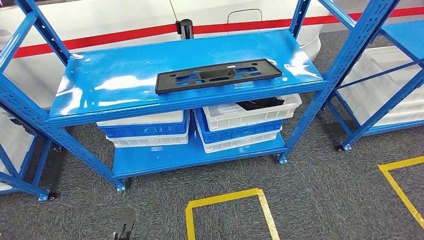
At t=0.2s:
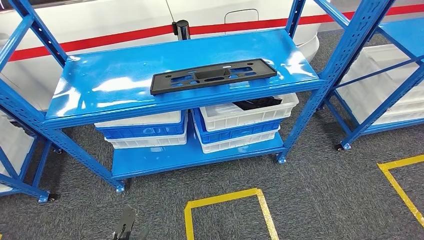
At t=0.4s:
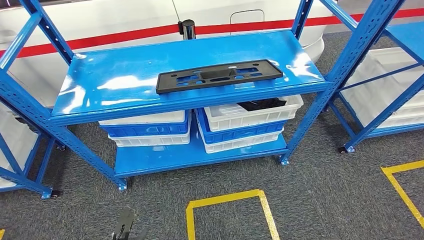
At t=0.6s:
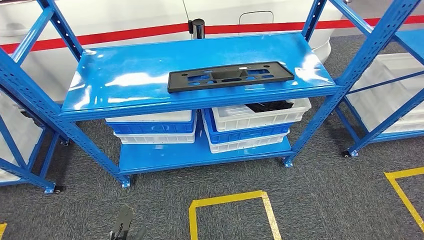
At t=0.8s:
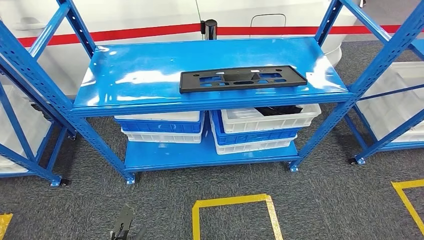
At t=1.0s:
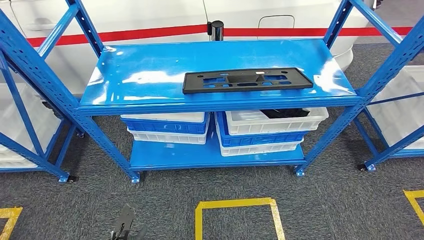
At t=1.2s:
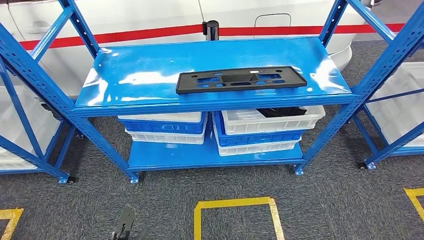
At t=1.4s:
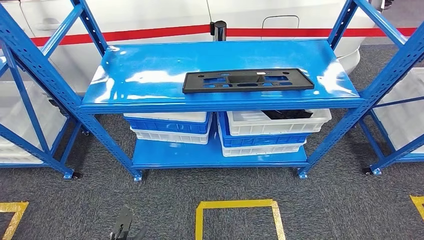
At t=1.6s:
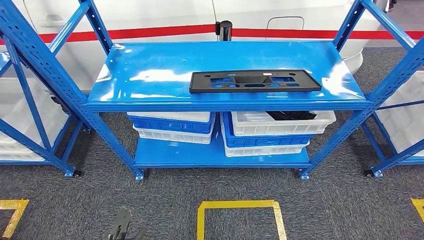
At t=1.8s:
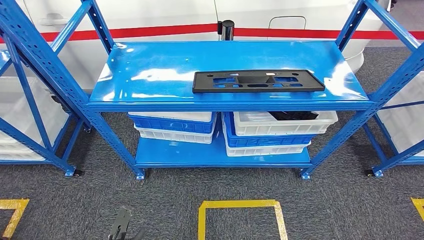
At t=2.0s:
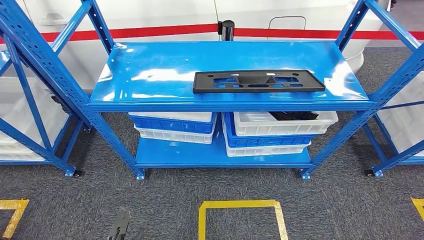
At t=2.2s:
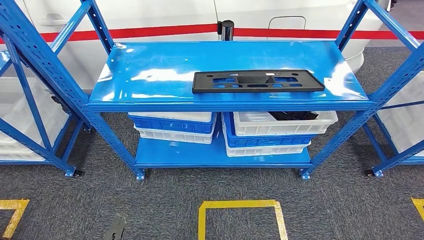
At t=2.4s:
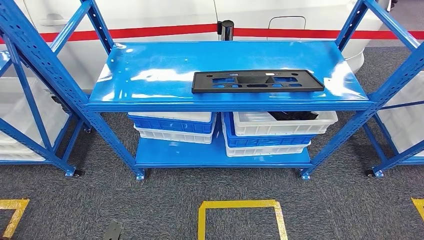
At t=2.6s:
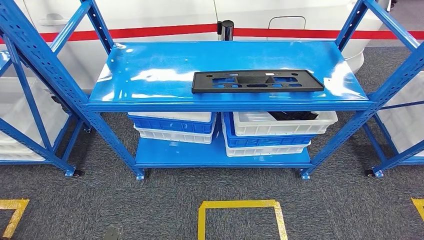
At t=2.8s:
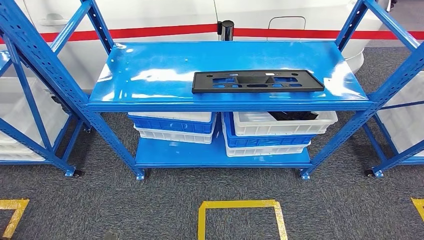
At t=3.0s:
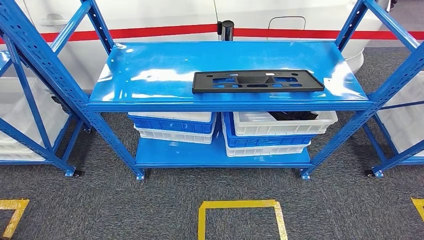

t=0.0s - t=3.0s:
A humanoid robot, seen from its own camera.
Step, t=0.0s - t=3.0s: Move to the initial position of the shelf.
t=1.6s - t=3.0s: The right hand shifts some 10 cm backward. Meanwhile the left hand travels backward and to the left by roughly 10 cm.

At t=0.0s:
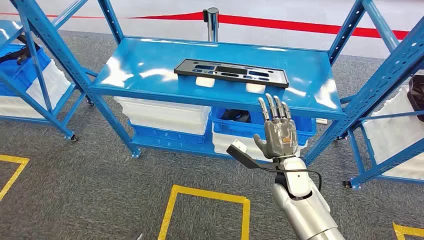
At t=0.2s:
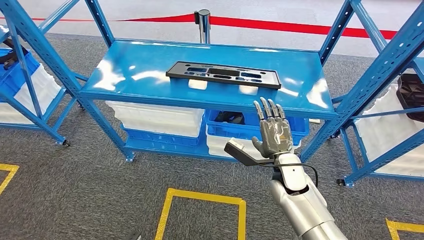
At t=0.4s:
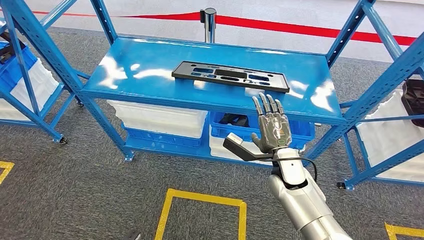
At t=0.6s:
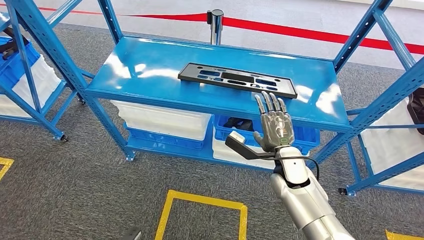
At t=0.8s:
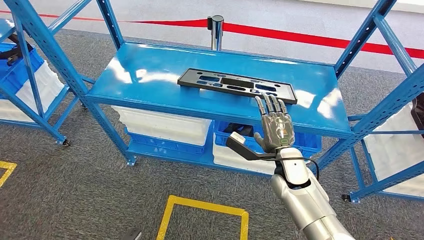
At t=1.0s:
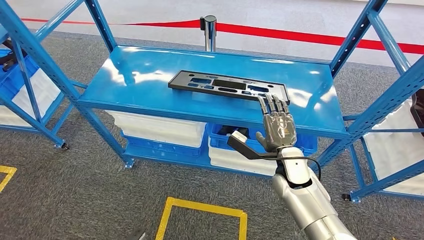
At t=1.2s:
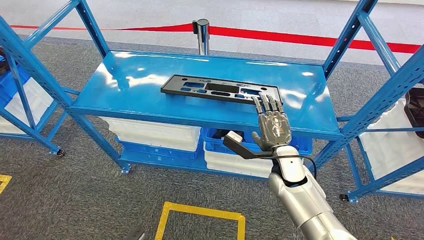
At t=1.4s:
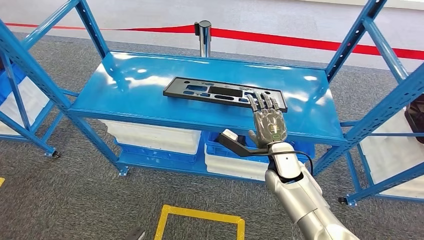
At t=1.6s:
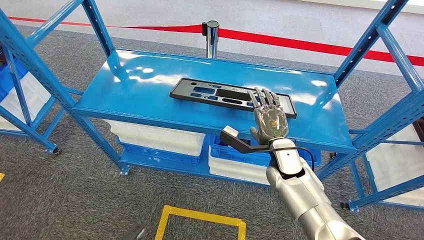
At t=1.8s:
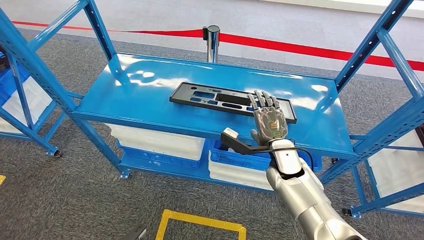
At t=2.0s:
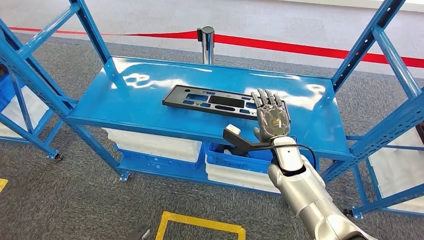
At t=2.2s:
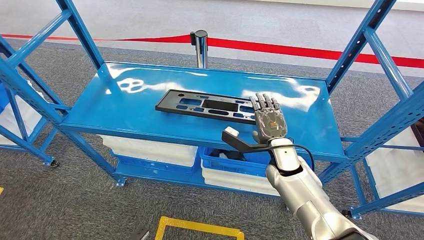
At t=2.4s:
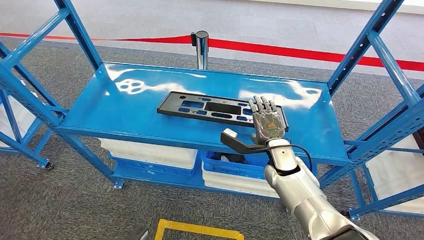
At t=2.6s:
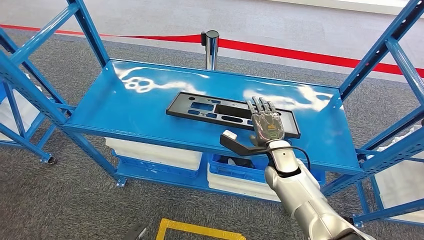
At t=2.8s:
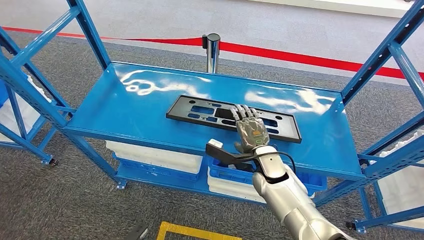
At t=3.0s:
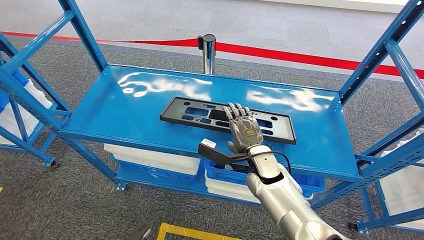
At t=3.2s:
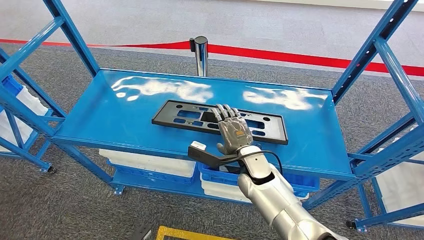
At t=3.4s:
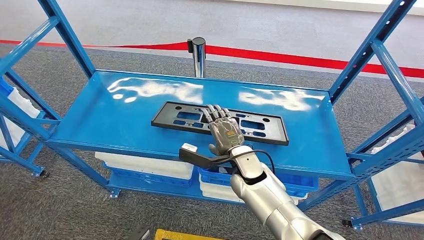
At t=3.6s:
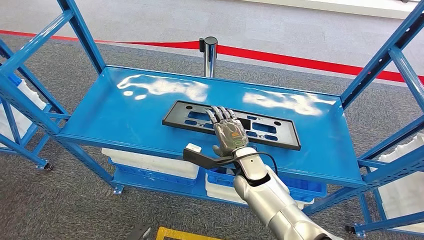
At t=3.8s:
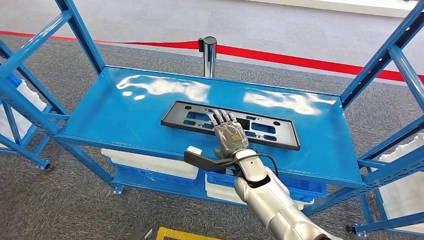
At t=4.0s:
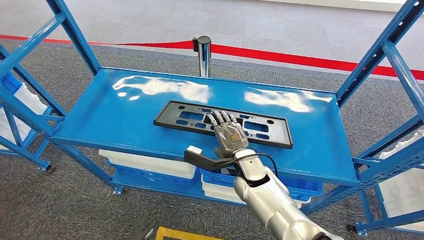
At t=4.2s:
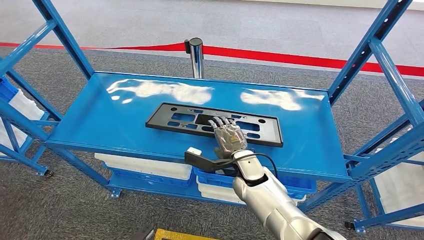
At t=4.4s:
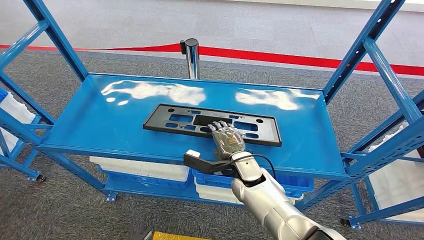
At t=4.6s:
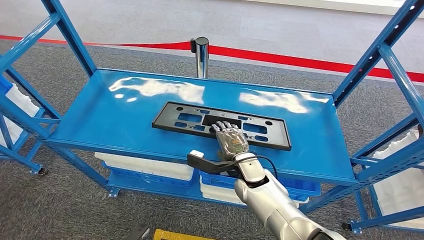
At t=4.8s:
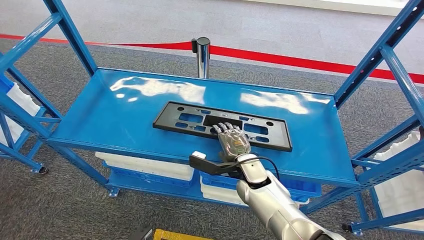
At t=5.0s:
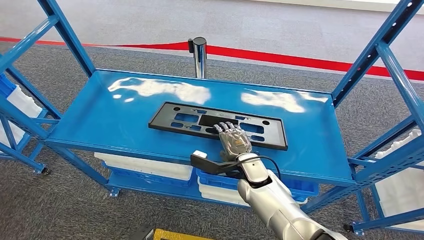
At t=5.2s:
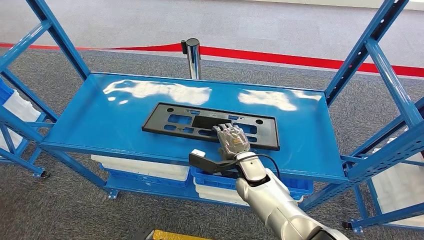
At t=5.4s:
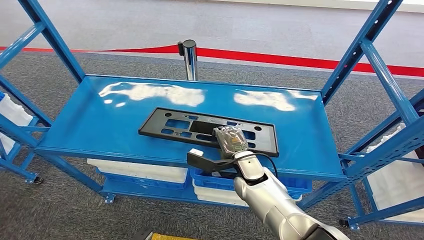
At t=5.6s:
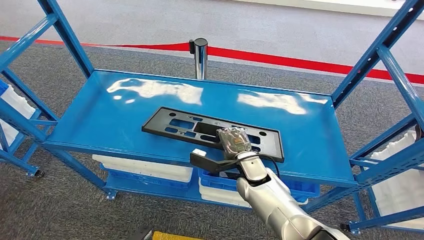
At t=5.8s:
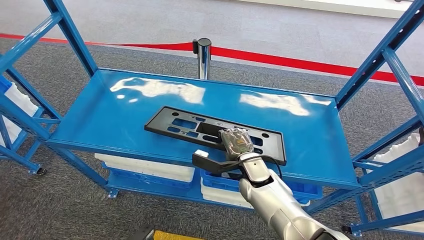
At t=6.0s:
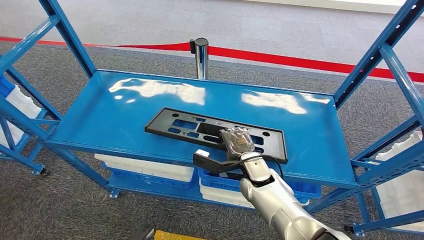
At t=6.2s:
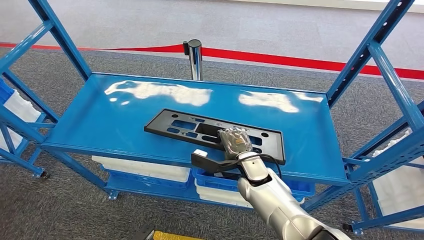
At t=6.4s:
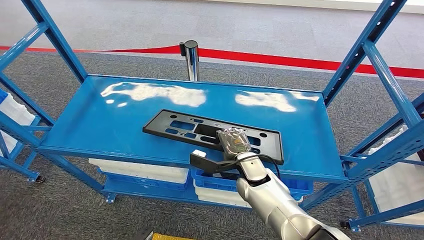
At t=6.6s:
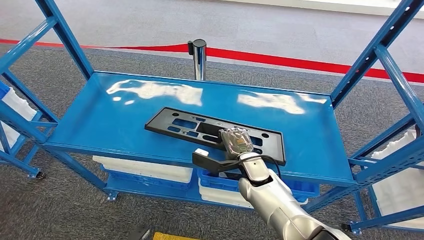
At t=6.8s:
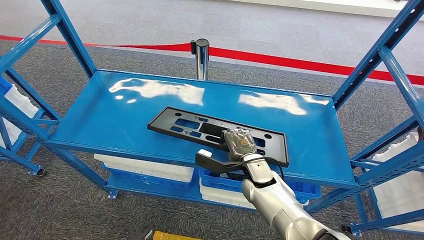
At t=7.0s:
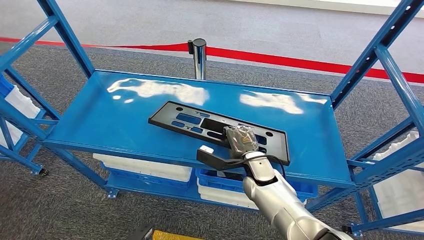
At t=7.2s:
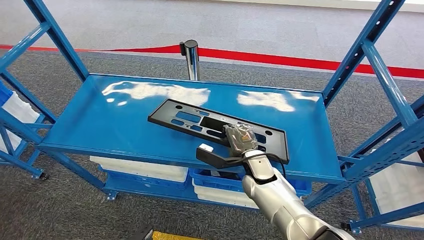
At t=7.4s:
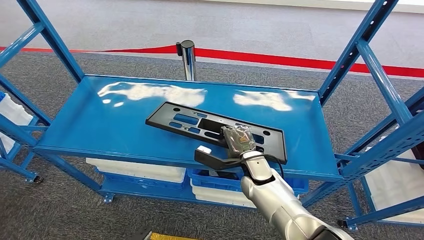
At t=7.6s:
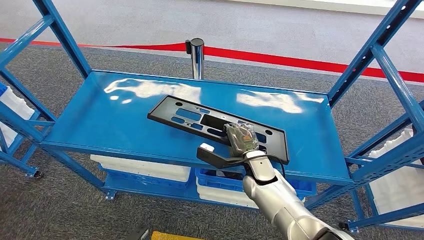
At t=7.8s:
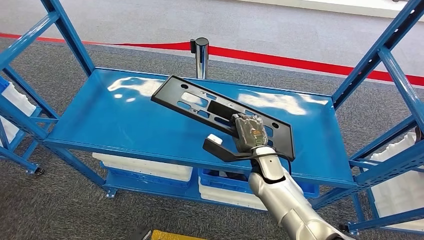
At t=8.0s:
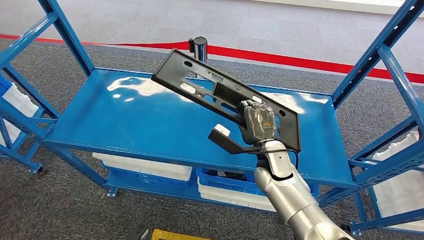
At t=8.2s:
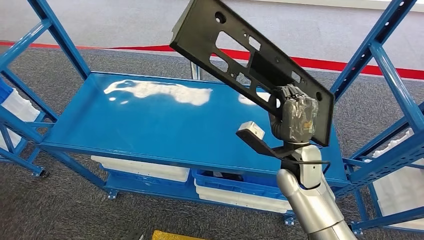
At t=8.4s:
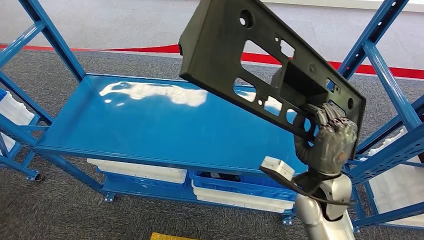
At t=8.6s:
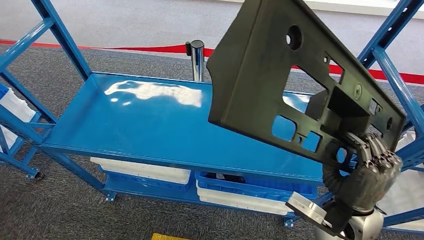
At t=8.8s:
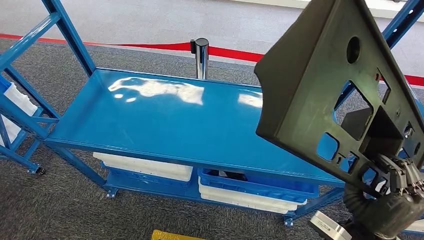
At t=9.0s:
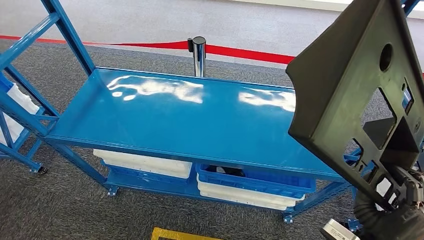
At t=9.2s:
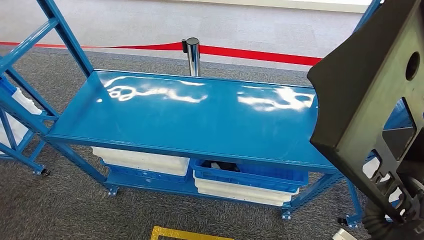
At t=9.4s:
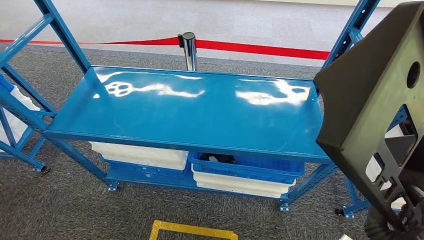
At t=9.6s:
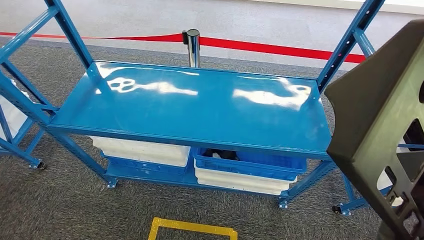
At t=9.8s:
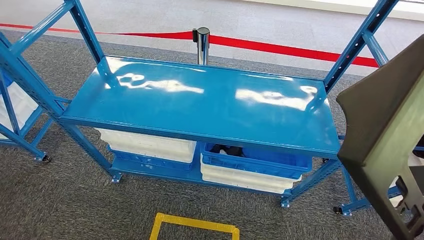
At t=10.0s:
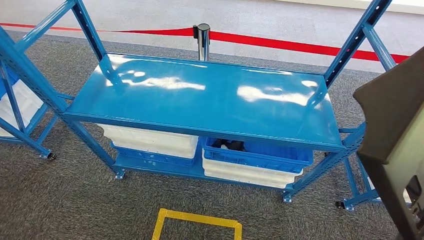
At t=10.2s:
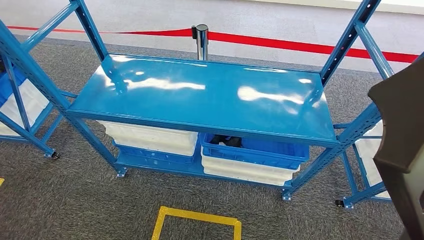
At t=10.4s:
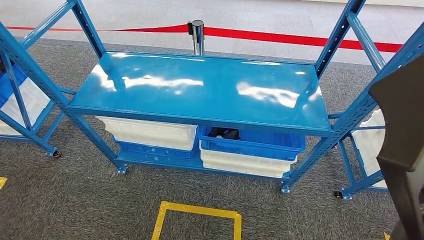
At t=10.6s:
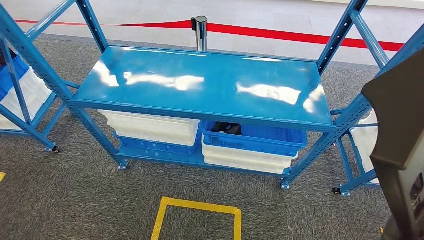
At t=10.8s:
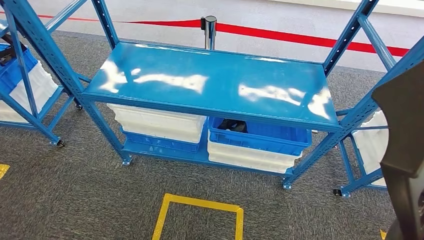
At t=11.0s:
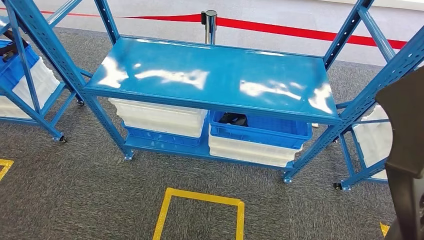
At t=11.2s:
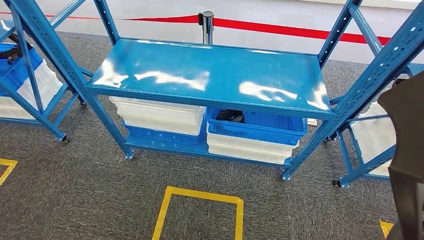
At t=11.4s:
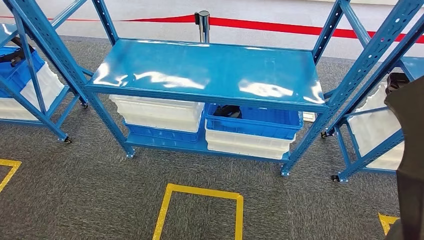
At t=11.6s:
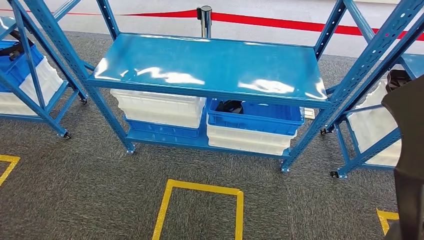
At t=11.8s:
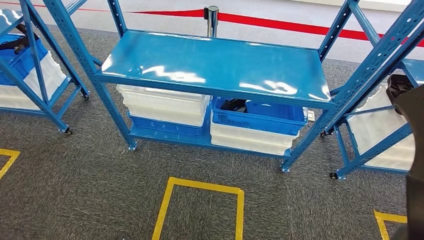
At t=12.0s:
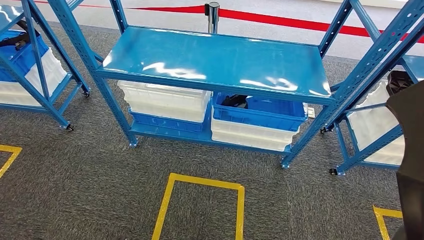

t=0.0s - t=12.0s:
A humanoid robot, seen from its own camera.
Step, t=0.0s - t=8.6s: Pick up the large material from the shelf.

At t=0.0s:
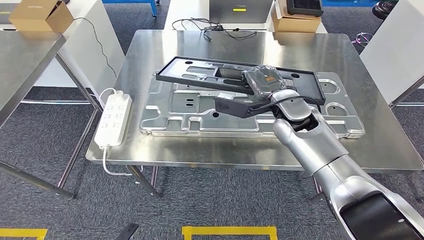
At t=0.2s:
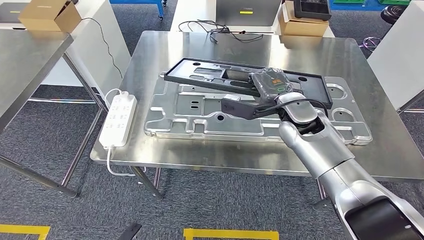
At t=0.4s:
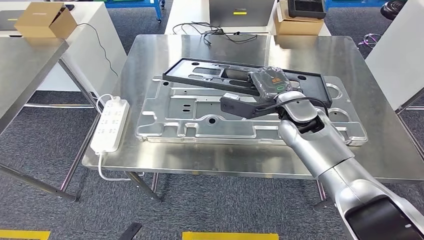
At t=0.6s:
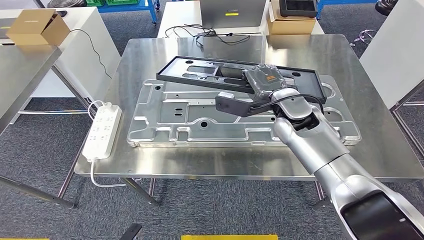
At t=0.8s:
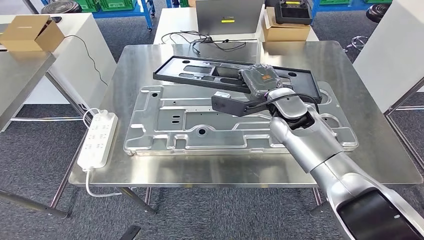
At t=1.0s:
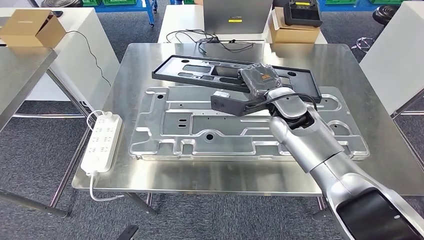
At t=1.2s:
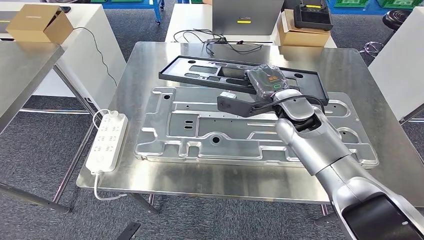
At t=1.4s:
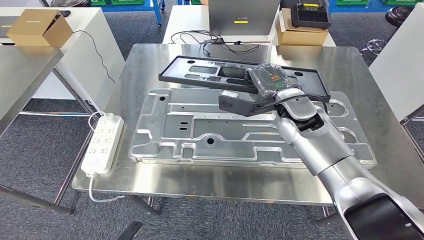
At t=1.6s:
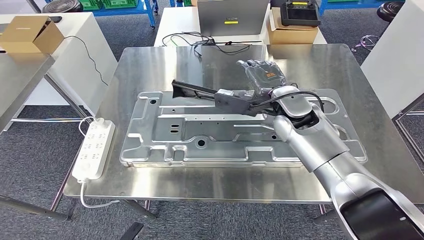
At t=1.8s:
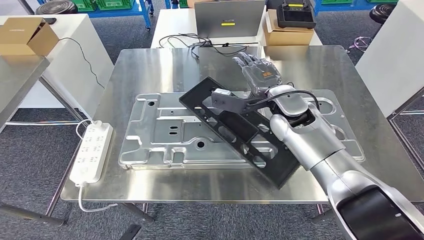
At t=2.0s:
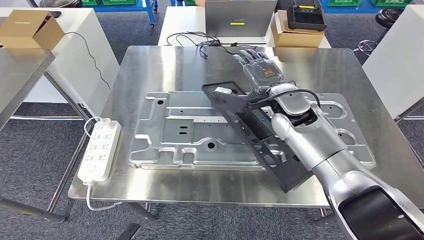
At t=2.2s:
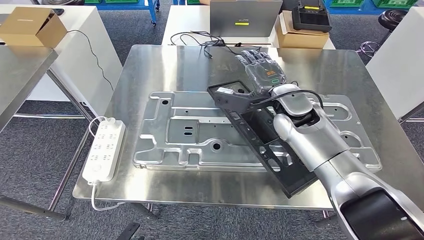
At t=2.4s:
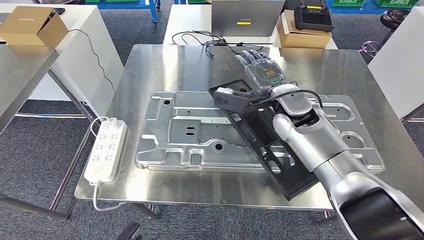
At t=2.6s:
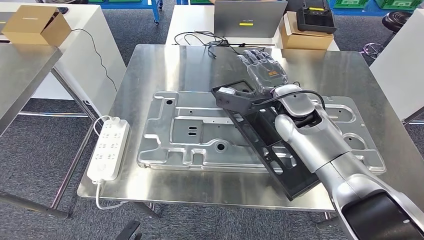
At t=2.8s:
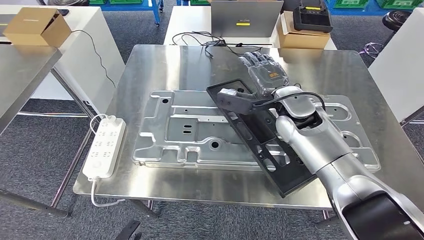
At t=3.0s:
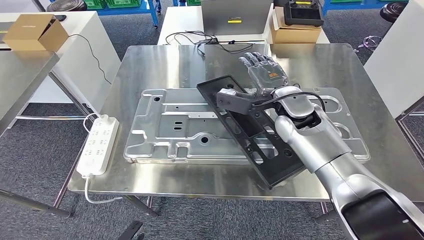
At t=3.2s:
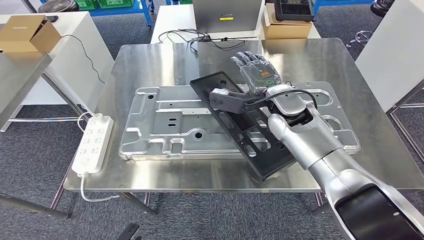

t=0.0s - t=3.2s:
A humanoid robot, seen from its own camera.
Step, t=0.0s - t=2.8s: Insert the large material into the corresponding hole on the workbench.
